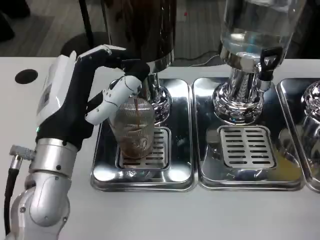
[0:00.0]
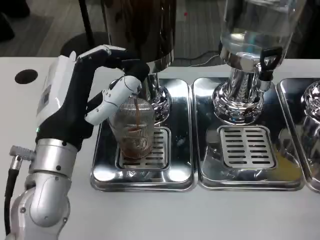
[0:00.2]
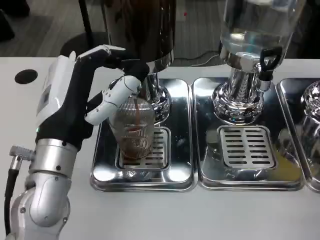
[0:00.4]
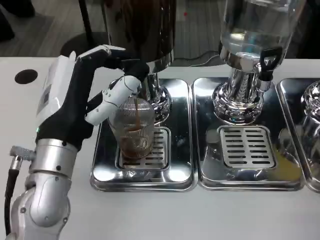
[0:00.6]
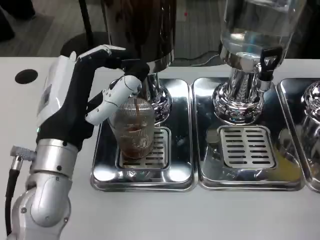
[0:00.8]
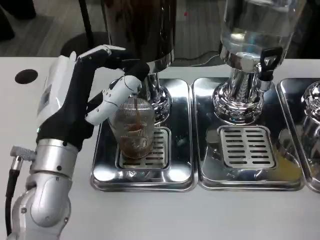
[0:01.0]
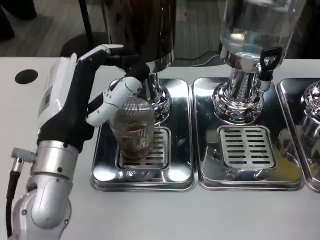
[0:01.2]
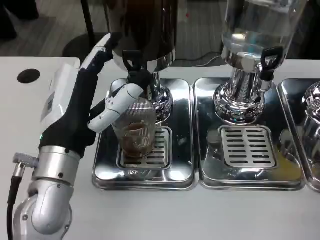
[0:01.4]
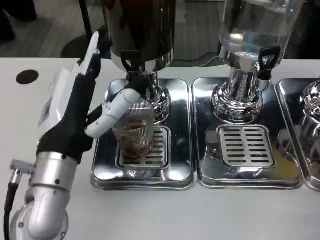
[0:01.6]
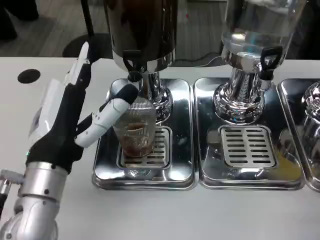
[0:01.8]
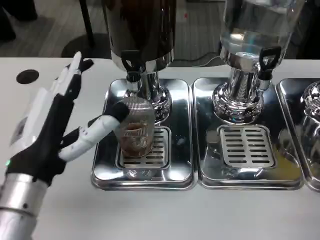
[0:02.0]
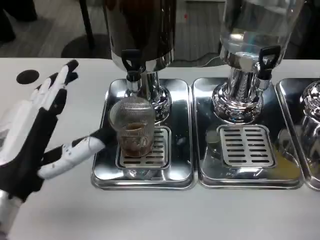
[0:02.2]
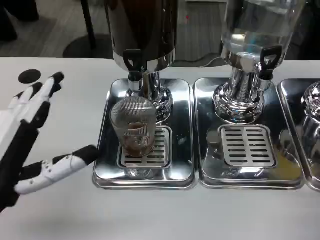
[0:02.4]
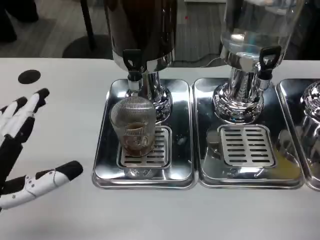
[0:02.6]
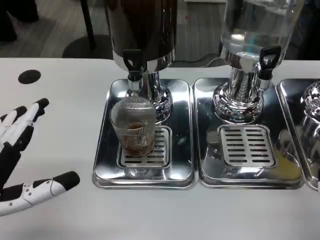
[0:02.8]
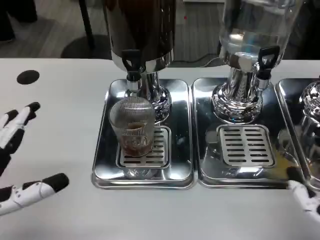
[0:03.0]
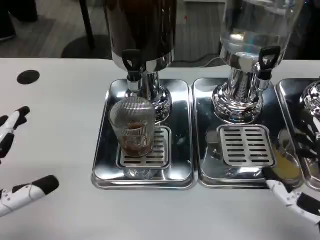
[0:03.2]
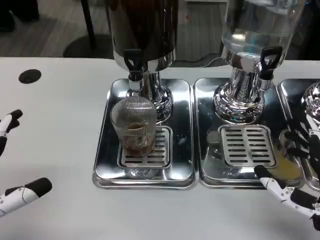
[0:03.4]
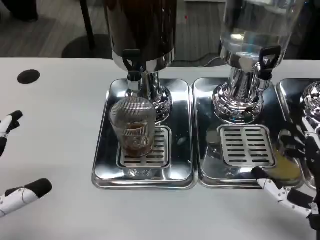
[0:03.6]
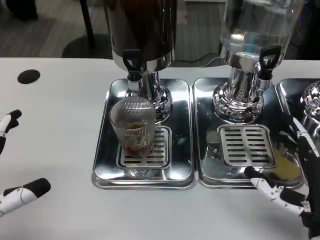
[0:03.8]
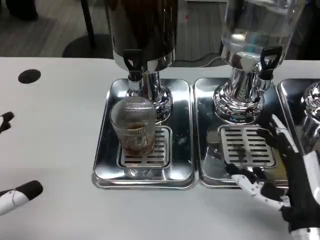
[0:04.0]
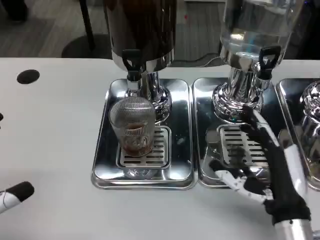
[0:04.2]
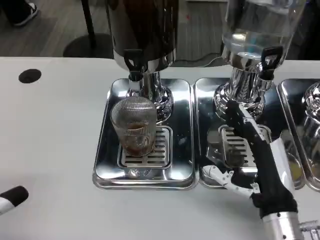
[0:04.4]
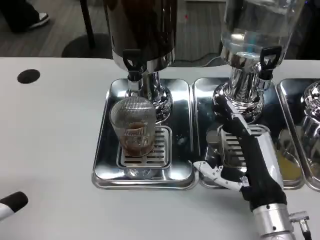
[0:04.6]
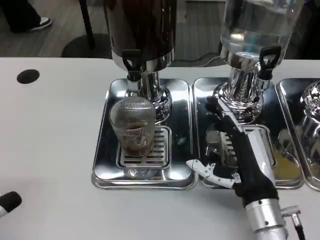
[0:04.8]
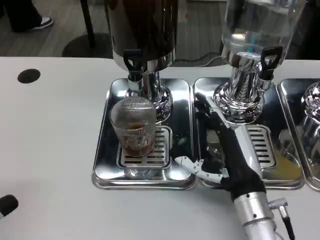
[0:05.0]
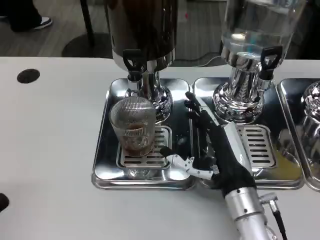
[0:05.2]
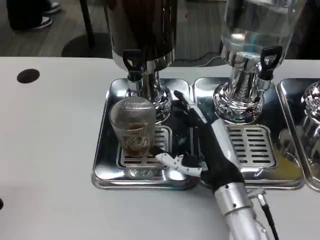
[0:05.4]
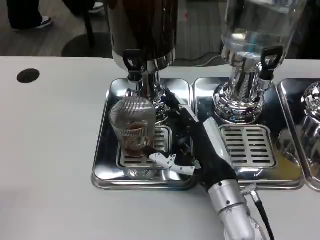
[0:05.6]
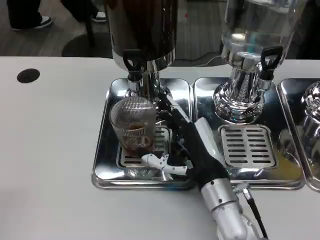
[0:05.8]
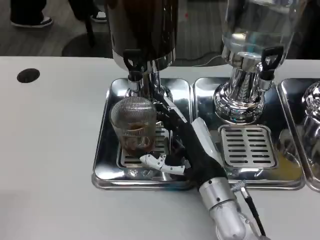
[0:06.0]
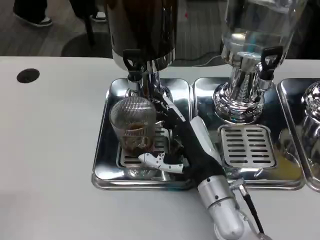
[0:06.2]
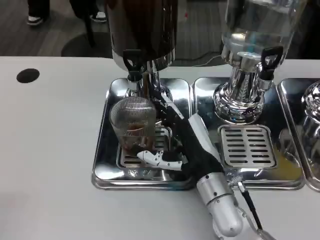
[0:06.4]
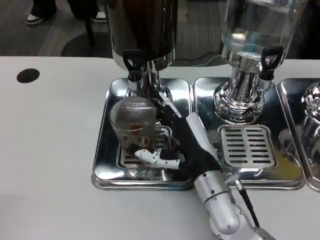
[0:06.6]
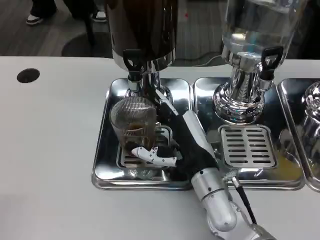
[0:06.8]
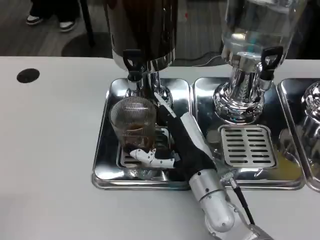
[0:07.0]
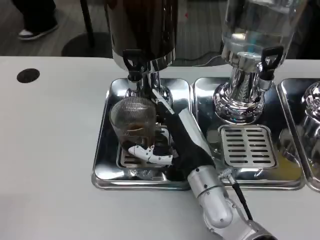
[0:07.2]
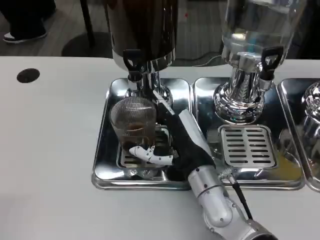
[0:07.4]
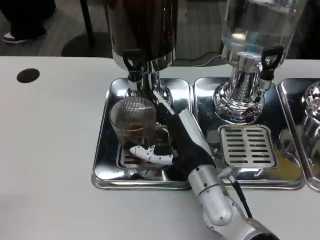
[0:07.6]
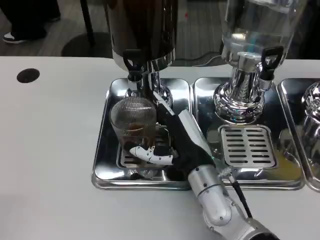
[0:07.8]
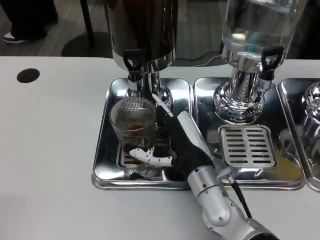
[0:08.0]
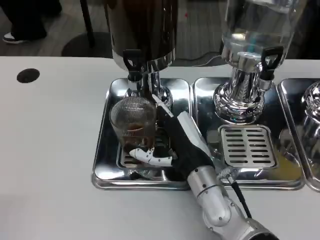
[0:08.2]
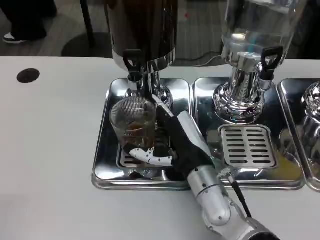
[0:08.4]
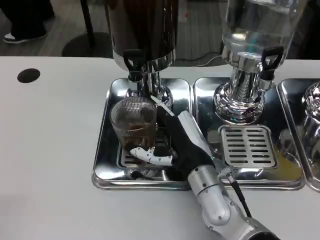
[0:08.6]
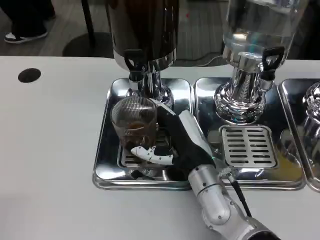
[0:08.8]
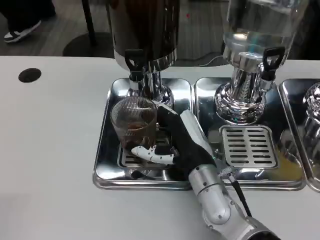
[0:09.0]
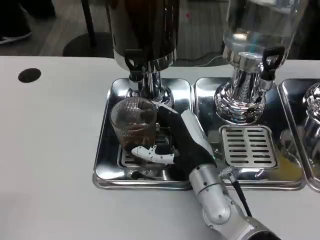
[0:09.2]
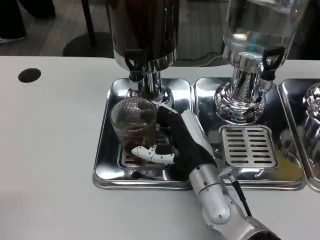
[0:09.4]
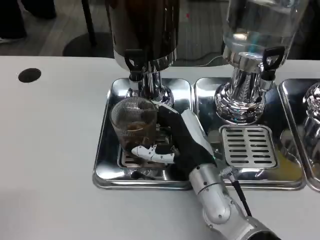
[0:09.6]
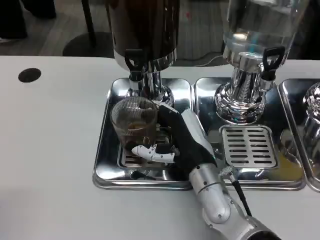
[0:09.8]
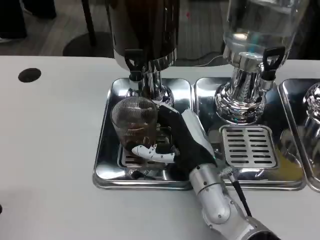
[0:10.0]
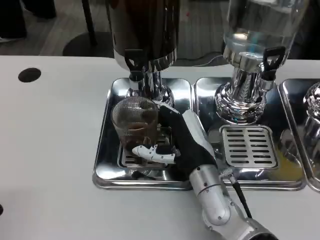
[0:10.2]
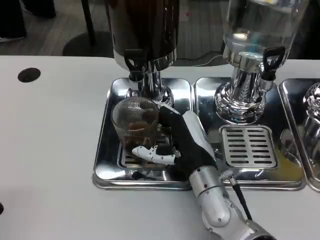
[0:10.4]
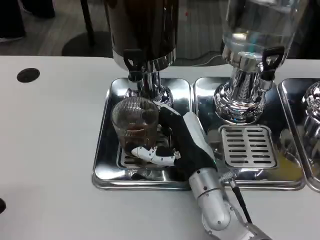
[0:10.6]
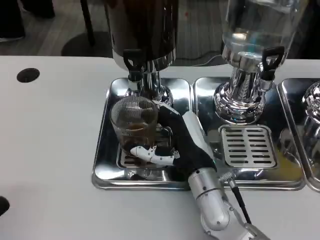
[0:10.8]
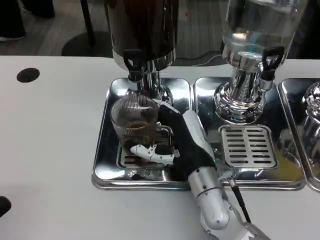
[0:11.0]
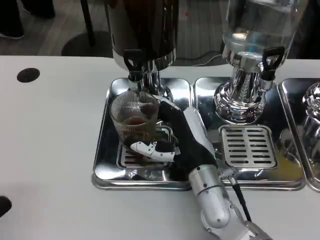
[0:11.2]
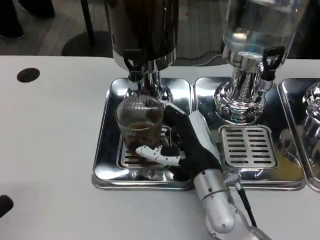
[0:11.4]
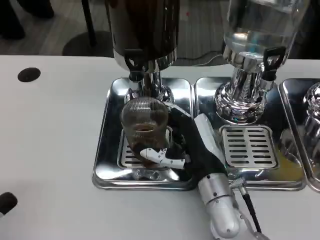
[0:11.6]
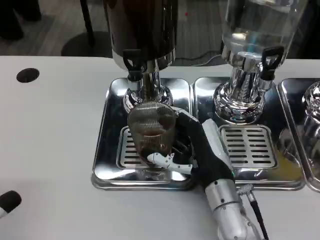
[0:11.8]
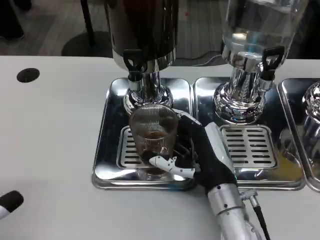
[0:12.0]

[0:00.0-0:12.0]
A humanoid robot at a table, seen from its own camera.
Task of the whole recording: Grasp the cup under the faucet to collect the drink, then remove the cup.
0:01.6 to 0:03.0: The left hand shifts some 15 cm to the left and backward.
0:03.0 to 0:04.4: The right hand heads forward and to the left, covering about 10 cm.
0:04.4 to 0:06.0: The right hand is displaced to the left and forward by approximately 10 cm.
0:06.0 to 0:07.6: The hands move only a little.
0:07.6 to 0:09.0: Both hands stay put.
0:09.0 to 0:12.0: The hands make only small movements.

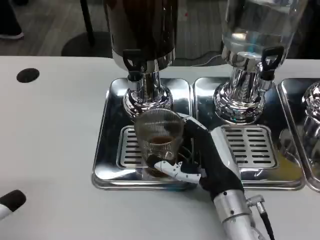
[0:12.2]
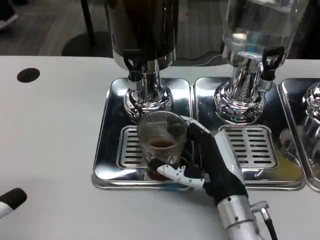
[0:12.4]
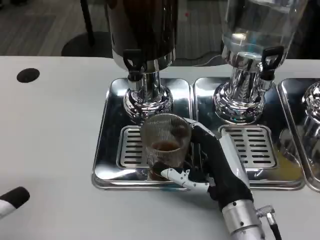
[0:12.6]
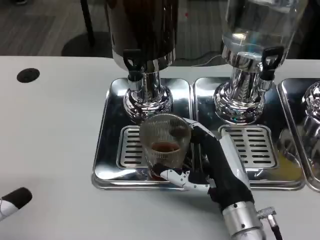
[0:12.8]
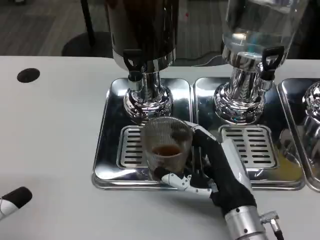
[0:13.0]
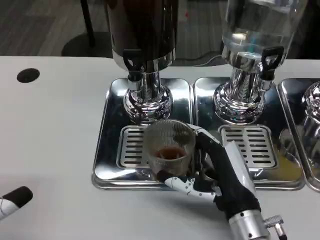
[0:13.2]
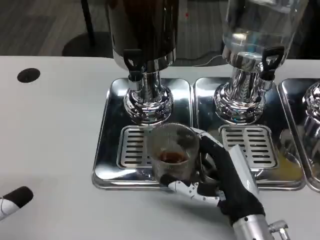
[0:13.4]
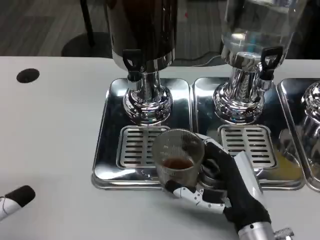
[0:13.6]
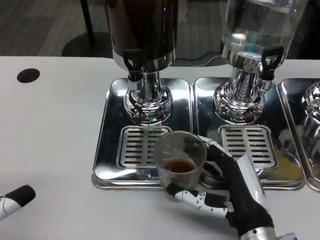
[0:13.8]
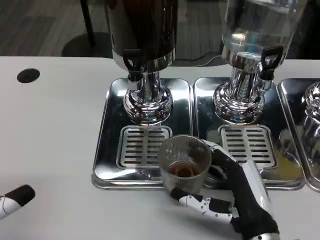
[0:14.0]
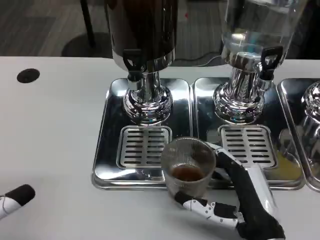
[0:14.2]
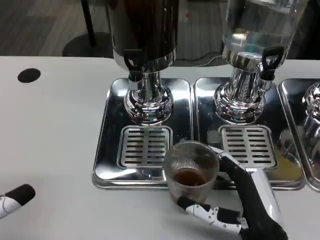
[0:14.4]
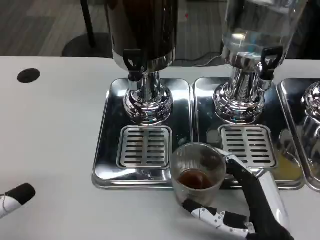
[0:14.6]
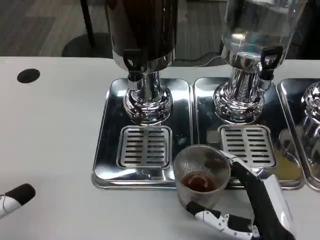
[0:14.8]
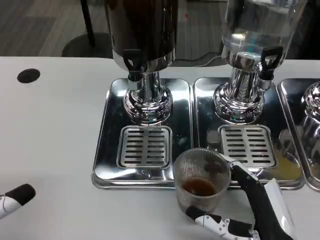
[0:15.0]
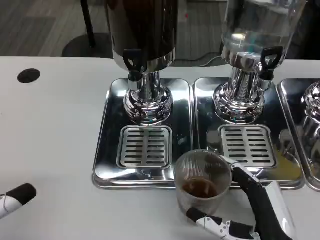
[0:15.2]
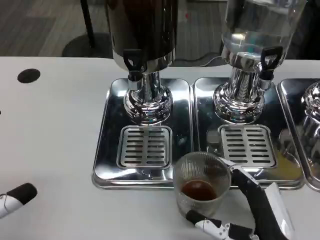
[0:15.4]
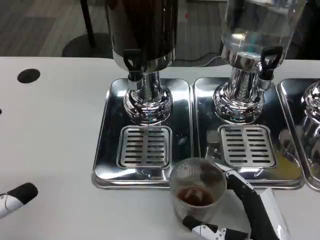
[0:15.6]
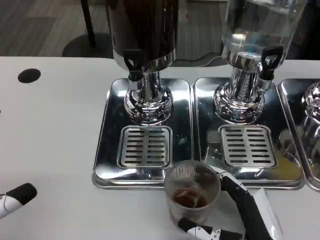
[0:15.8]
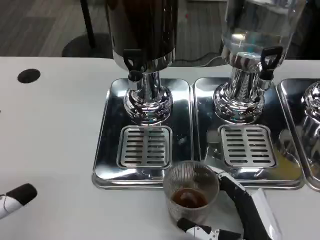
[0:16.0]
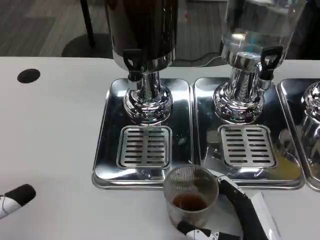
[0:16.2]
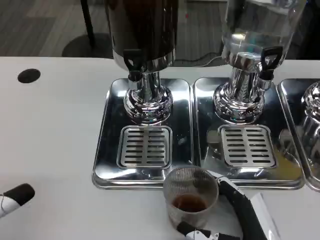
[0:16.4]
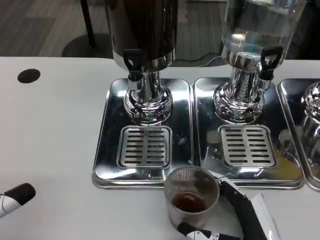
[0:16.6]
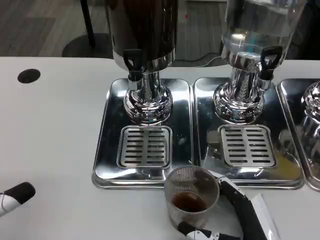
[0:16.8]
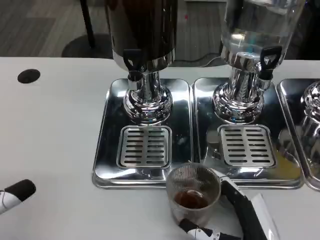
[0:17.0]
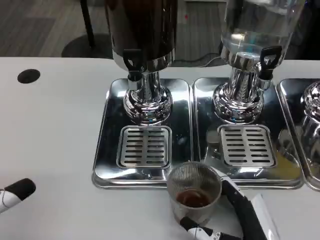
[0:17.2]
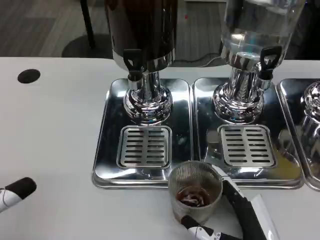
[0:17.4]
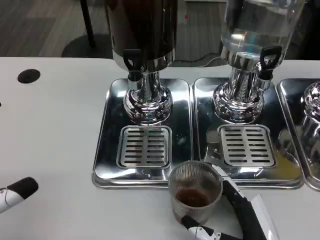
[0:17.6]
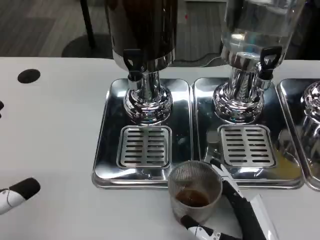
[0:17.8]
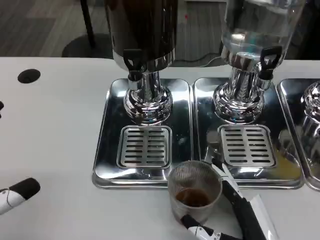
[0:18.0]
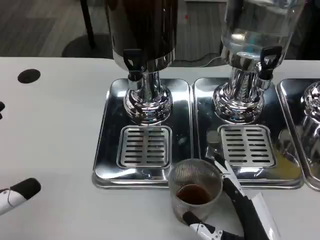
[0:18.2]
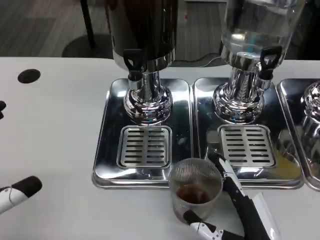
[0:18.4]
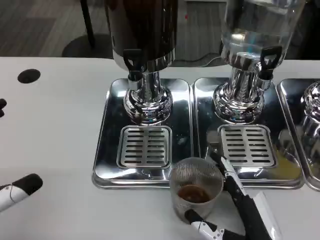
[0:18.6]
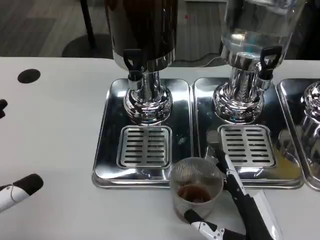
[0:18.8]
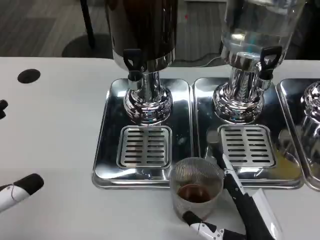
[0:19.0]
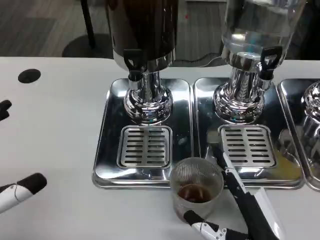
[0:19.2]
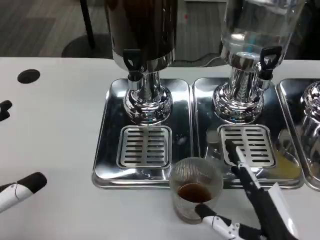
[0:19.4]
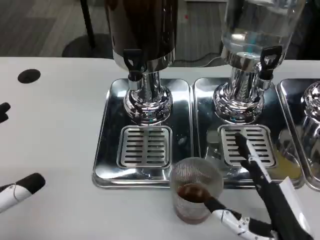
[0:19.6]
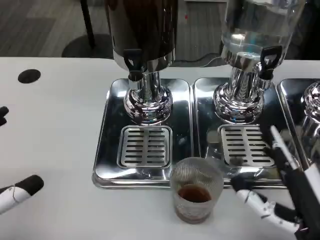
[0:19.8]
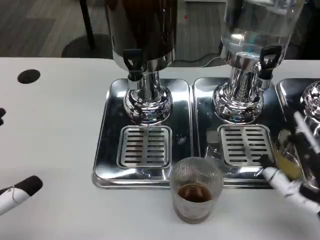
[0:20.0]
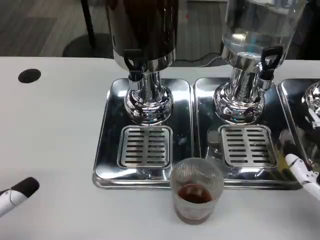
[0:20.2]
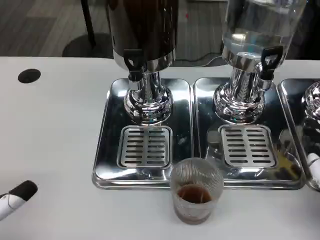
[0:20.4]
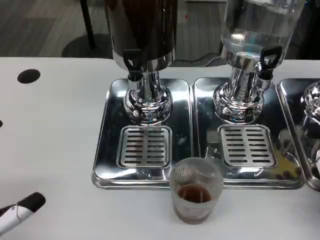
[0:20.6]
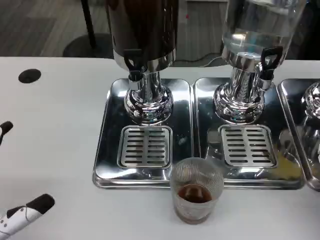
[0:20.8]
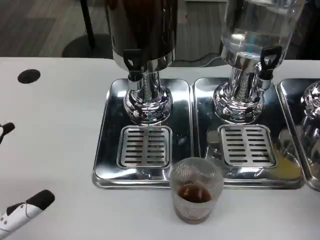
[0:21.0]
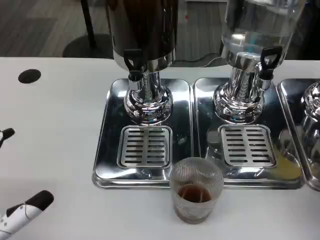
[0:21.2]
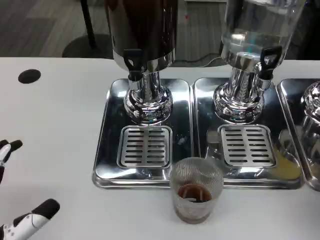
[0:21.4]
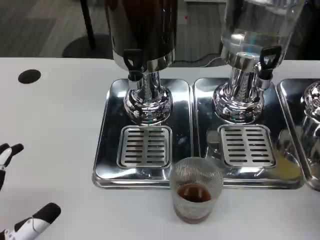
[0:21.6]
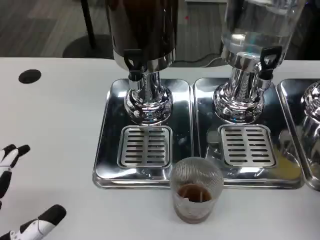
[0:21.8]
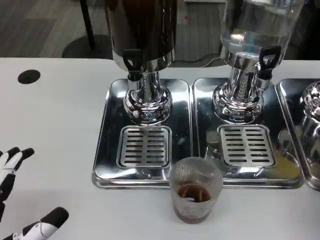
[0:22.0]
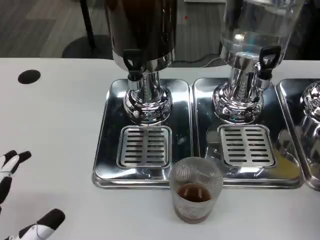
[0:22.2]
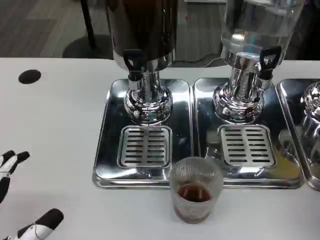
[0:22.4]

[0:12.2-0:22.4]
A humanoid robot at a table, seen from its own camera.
Task of the whole recording: Grasp the cup under the faucet to collect the drink, then remove the cup.
0:12.2 to 0:13.6: The right hand shifts by approximately 5 cm.
0:13.6 to 0:15.2: The right hand shifts about 5 cm backward.
0:15.2 to 0:16.6: The hands stay close to where they were, moving slightly.
0:16.6 to 0:18.0: Both hands stay put.
0:18.0 to 0:19.4: The hands stay close to where they were, moving slightly.
0:19.4 to 0:21.0: The right hand travels to the right by some 10 cm.
0:21.0 to 0:22.4: The hands stay close to where they were, moving slightly.
